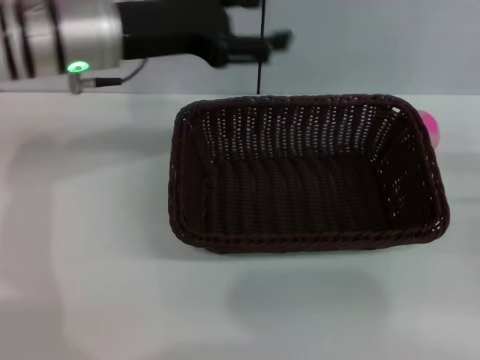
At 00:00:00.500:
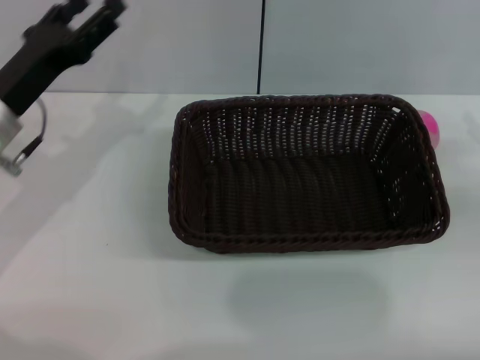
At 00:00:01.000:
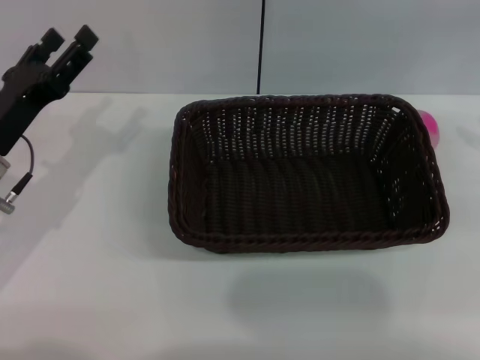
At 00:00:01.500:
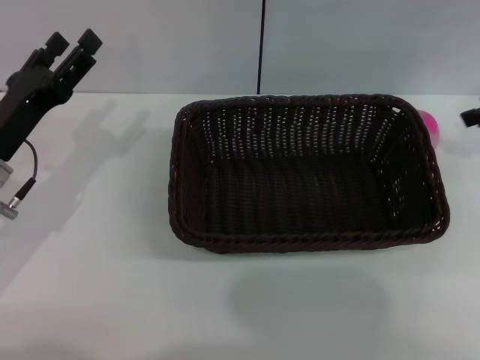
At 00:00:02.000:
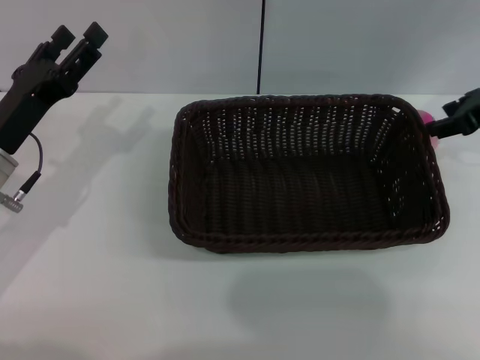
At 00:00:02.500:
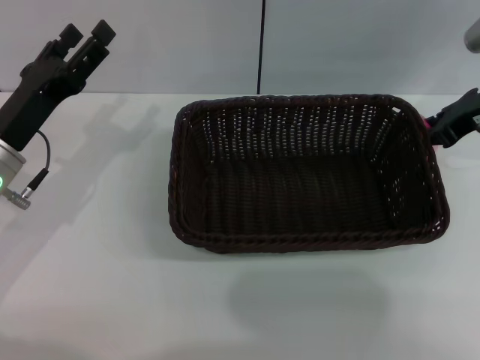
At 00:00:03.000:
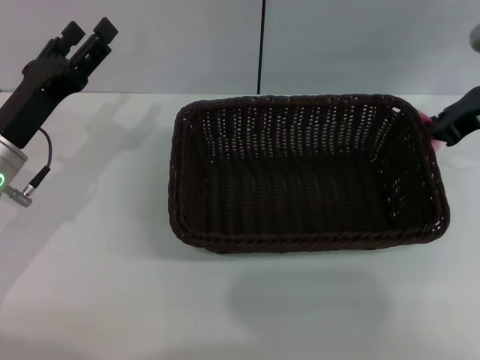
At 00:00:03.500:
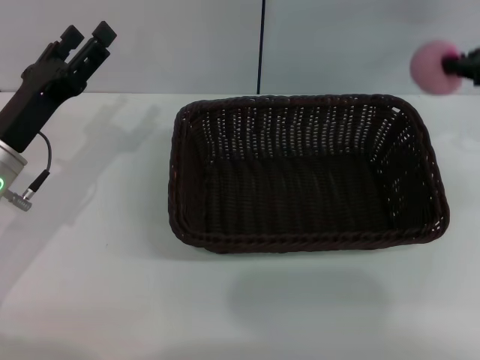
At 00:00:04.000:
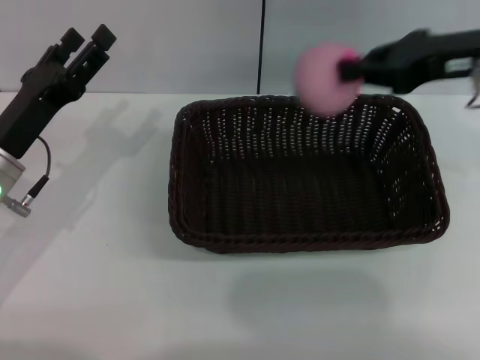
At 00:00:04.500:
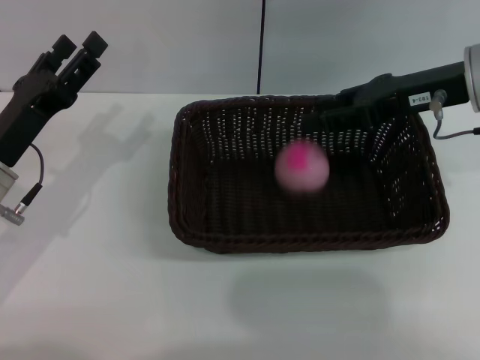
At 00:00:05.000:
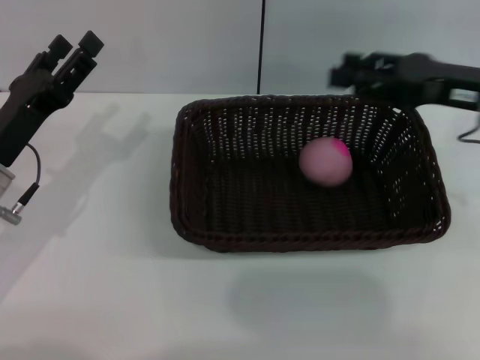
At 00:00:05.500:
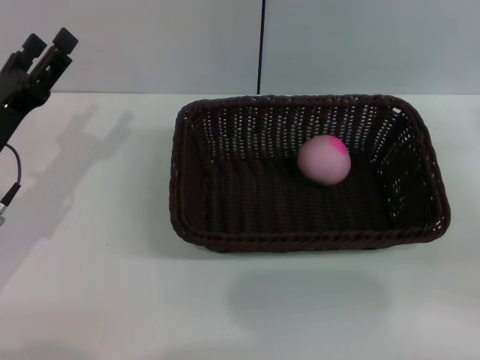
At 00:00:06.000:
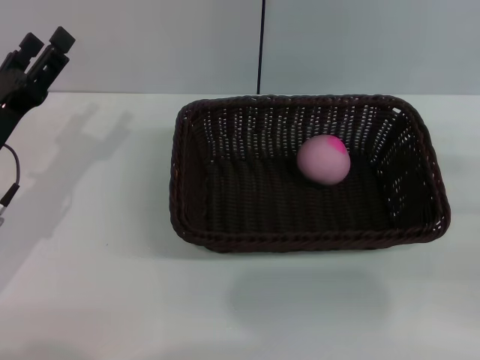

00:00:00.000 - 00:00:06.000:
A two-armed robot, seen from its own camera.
Step, 00:00:00.000 - 00:00:03.500: Pick up the peach with the left gripper.
Step, 00:00:04.000 - 00:00:04.500: Place the peach into the basket with the left gripper.
00:00:00.000 - 00:00:02.000: The right gripper heads forward, upward and to the left, covering roughly 20 cm, while the left gripper goes some 15 cm downward, to the left and backward.
00:00:02.000 - 00:00:04.000: The right gripper is displaced to the left and upward by about 10 cm, and closes.
00:00:04.000 - 00:00:06.000: The right gripper shifts roughly 25 cm downward, to the right and backward, and opens its fingers.

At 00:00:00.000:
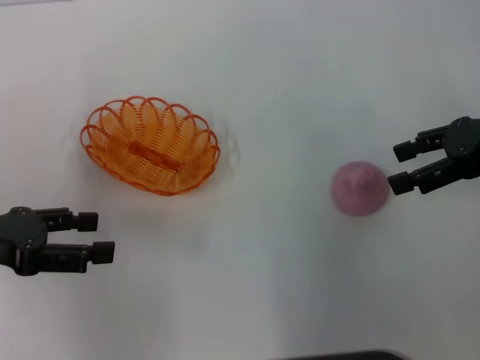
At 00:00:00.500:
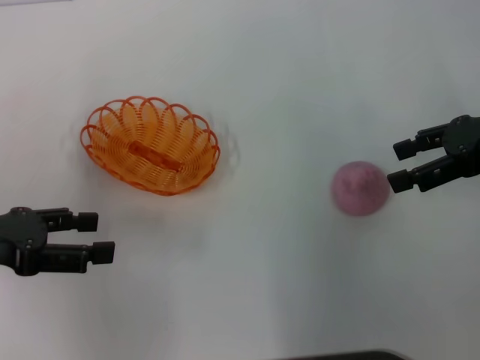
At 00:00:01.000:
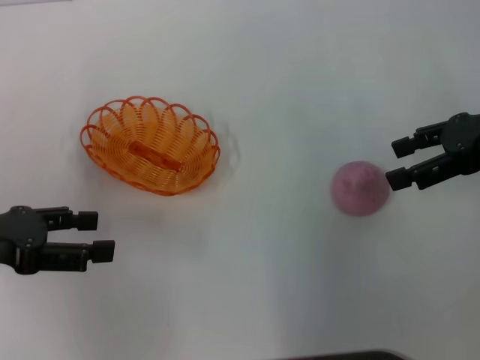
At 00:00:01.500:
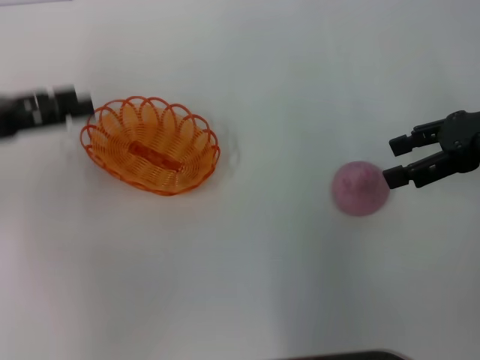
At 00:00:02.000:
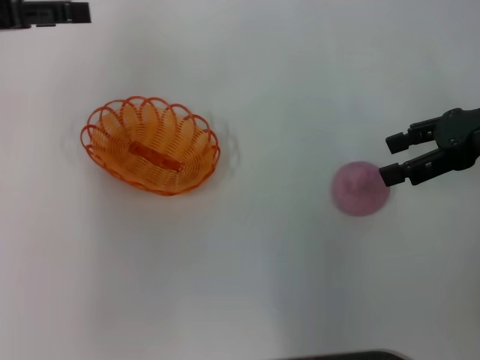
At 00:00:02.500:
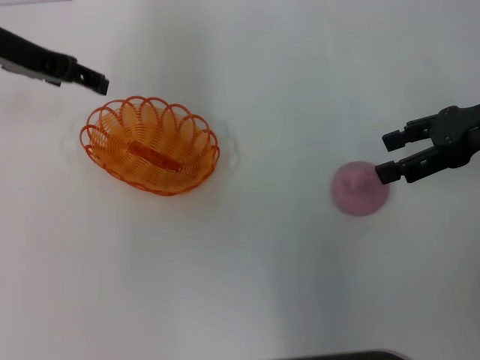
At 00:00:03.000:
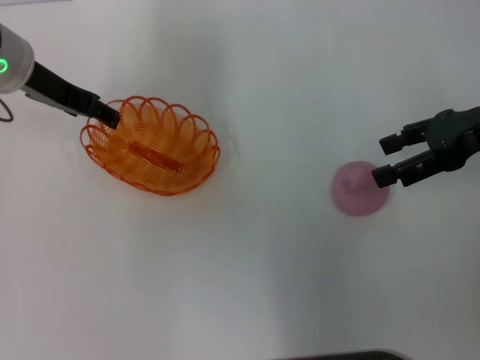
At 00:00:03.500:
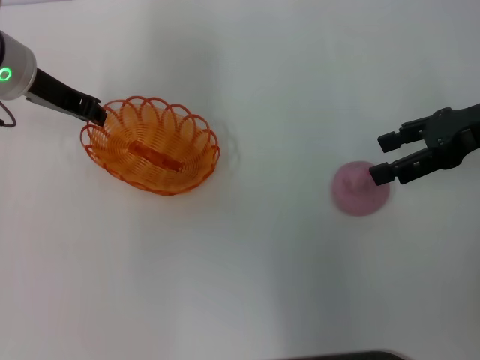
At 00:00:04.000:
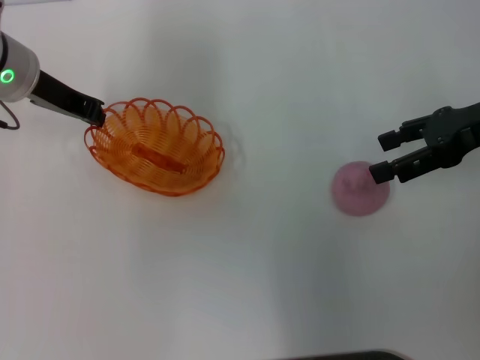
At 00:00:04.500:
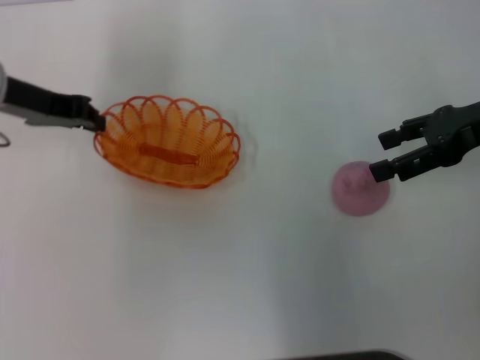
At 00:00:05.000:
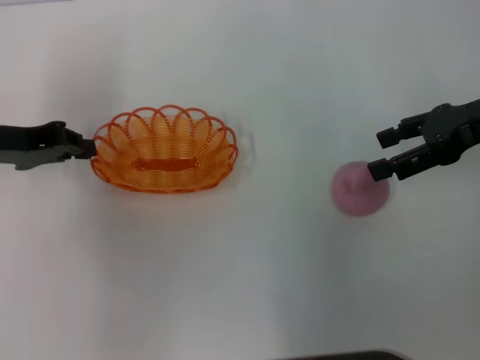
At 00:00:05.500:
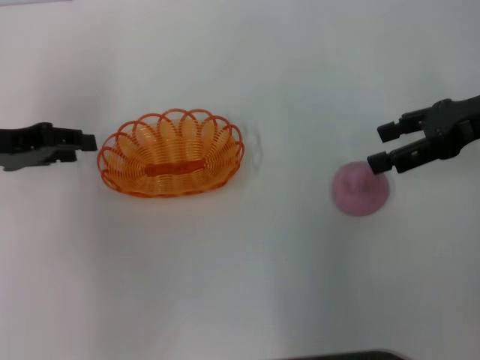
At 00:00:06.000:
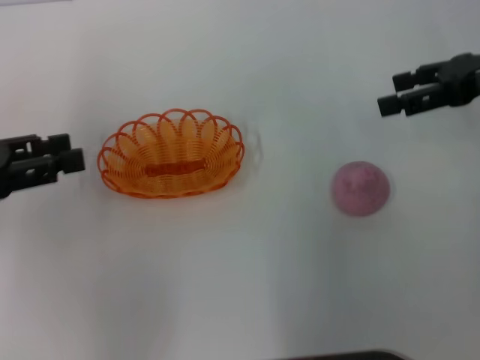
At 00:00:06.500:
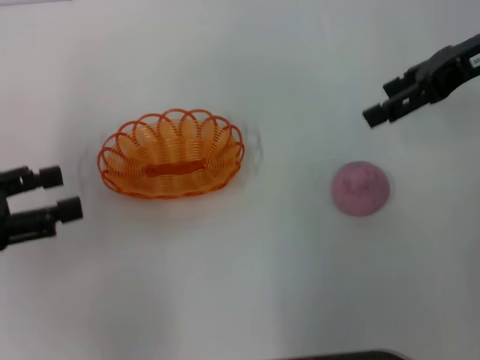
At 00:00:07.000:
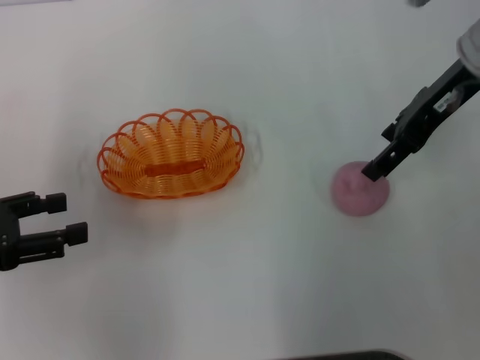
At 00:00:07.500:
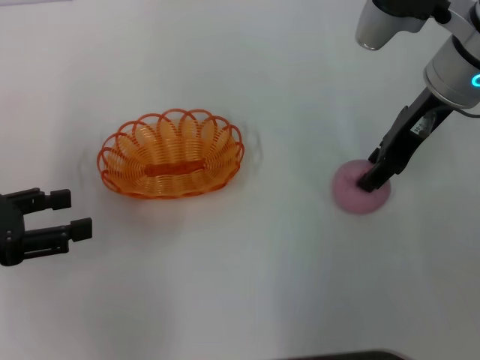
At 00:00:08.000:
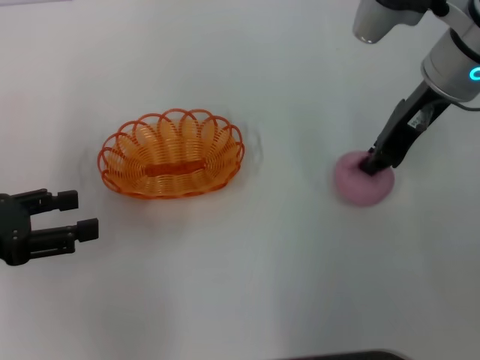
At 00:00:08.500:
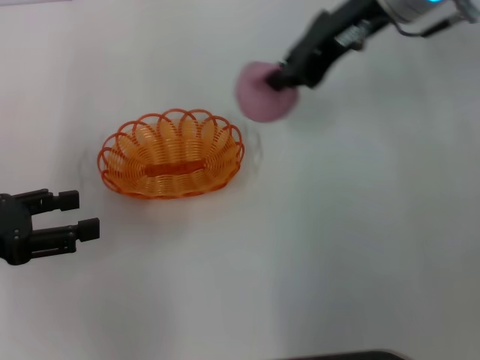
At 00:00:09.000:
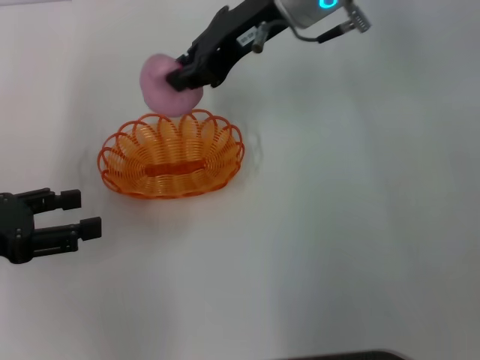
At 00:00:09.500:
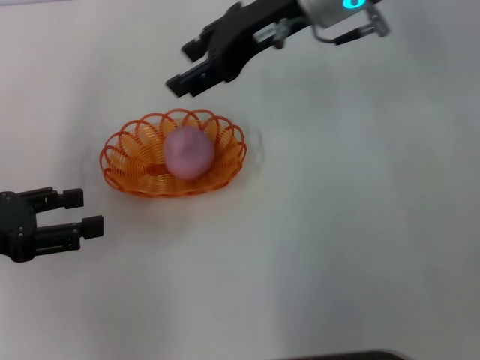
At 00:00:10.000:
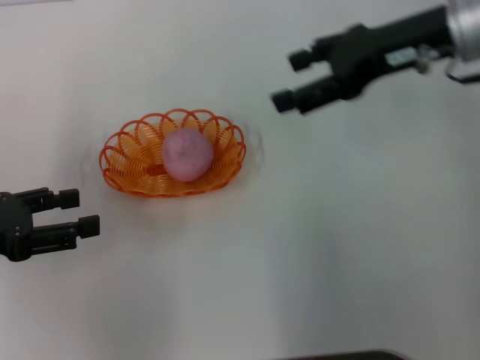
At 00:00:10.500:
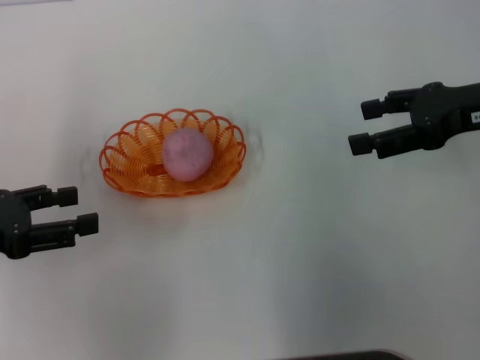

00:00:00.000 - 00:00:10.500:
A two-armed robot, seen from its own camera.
Step, 00:00:00.000 - 00:00:04.500: Pick up the basket with the left gripper.
Step, 00:00:05.000 - 00:00:06.000: Move the basket to the center of view with the left gripper.
Step, 00:00:06.500 - 00:00:08.000: Pick up the peach with the right gripper.
Step, 00:00:08.500 - 00:00:09.500: Place the peach into the basket with the right gripper.
00:00:00.000 - 00:00:02.000: The left gripper is displaced forward and upward by some 15 cm.
00:00:02.000 - 00:00:04.000: The left gripper shifts approximately 10 cm to the right and downward, and closes.
00:00:04.000 - 00:00:06.500: The right gripper goes roughly 5 cm upward. Meanwhile the left gripper moves backward and to the left, roughly 20 cm, and opens up.
00:00:06.500 - 00:00:08.500: The right gripper moves to the left, approximately 15 cm, and closes up.
00:00:08.500 - 00:00:10.500: The right gripper shifts roughly 20 cm to the right, backward and downward, and opens up.
